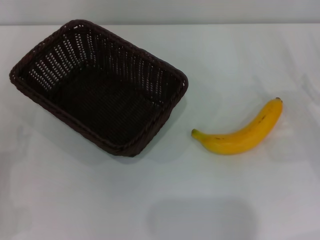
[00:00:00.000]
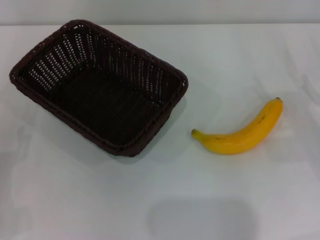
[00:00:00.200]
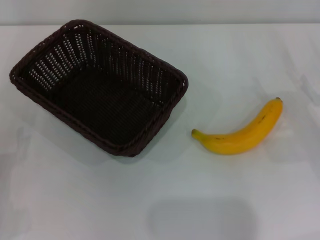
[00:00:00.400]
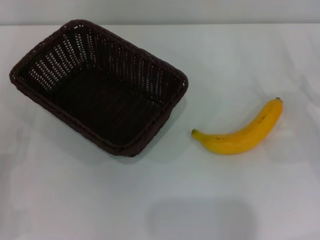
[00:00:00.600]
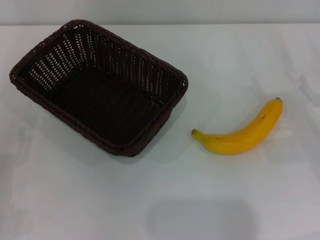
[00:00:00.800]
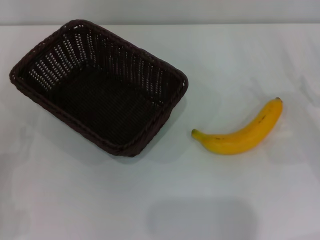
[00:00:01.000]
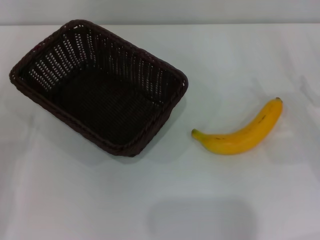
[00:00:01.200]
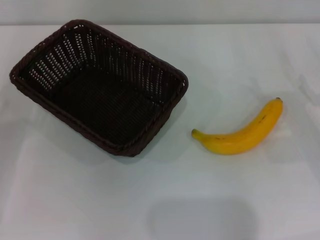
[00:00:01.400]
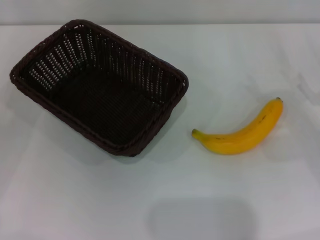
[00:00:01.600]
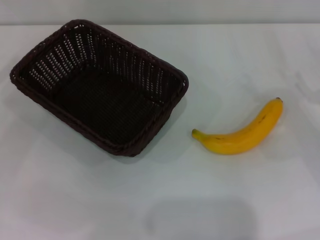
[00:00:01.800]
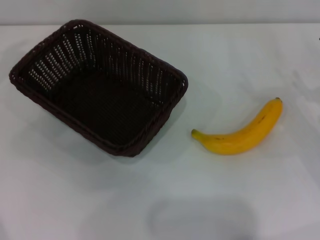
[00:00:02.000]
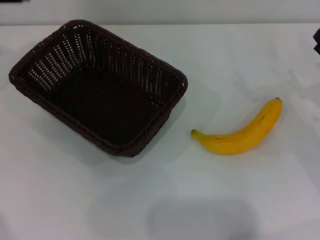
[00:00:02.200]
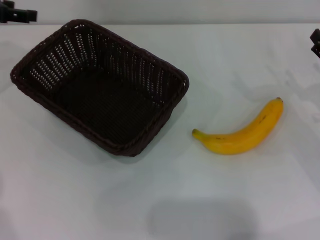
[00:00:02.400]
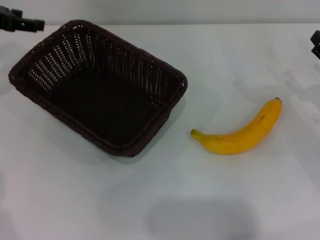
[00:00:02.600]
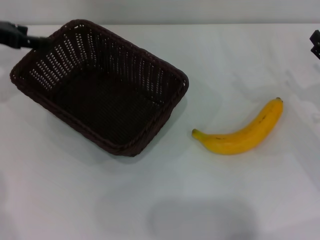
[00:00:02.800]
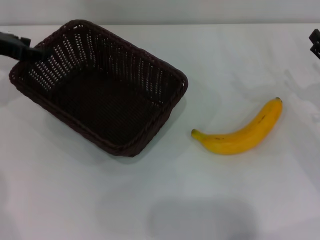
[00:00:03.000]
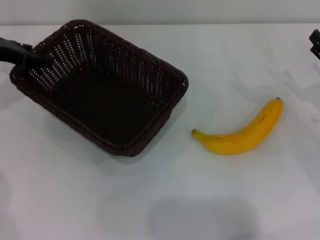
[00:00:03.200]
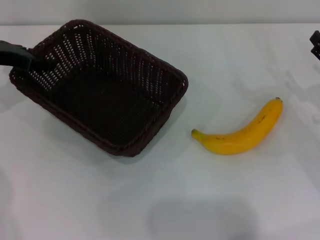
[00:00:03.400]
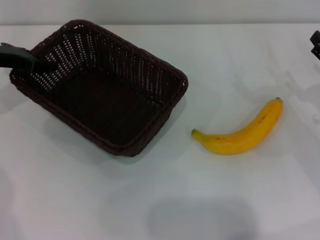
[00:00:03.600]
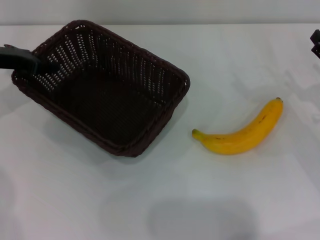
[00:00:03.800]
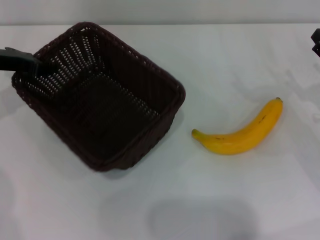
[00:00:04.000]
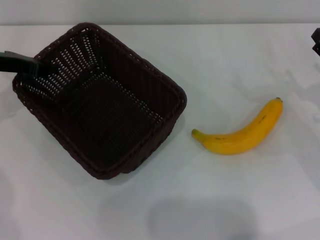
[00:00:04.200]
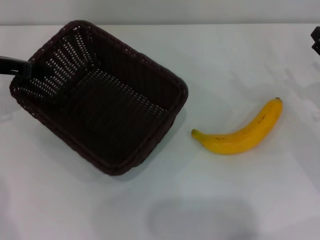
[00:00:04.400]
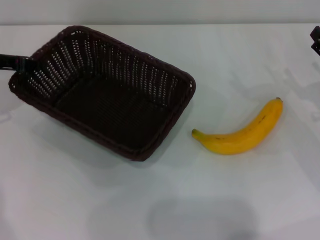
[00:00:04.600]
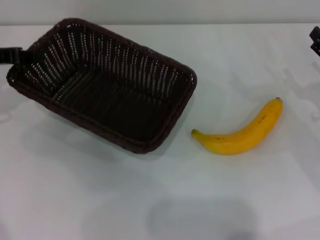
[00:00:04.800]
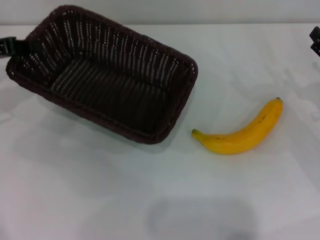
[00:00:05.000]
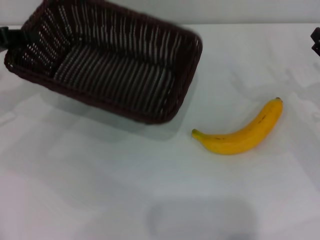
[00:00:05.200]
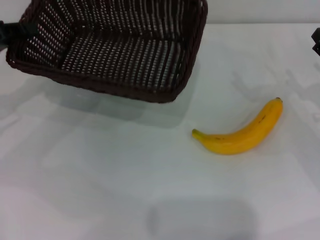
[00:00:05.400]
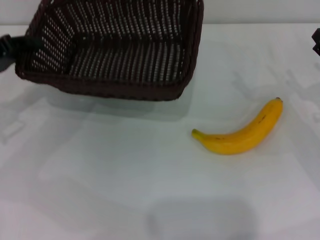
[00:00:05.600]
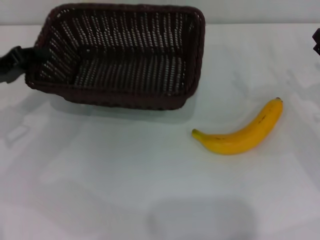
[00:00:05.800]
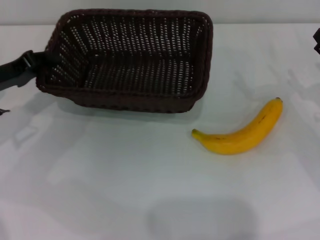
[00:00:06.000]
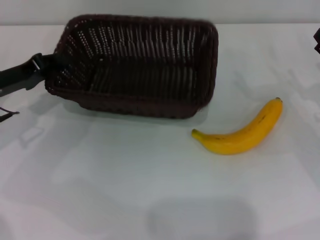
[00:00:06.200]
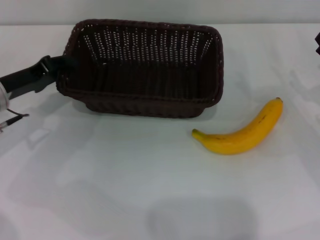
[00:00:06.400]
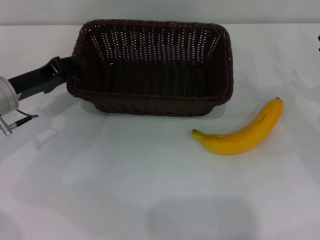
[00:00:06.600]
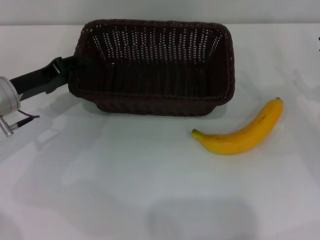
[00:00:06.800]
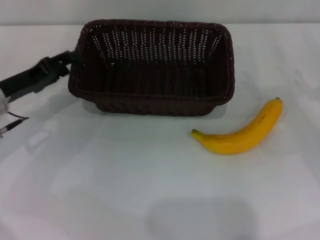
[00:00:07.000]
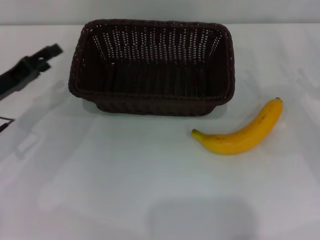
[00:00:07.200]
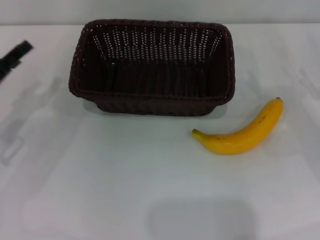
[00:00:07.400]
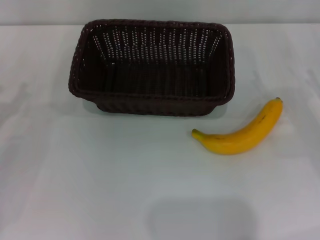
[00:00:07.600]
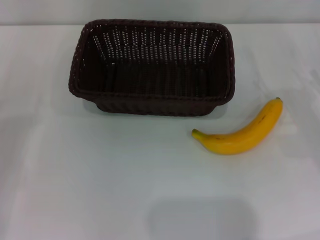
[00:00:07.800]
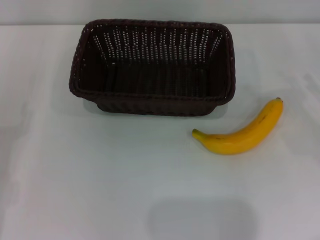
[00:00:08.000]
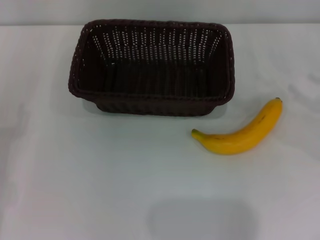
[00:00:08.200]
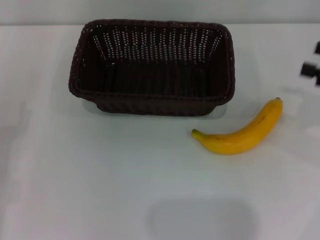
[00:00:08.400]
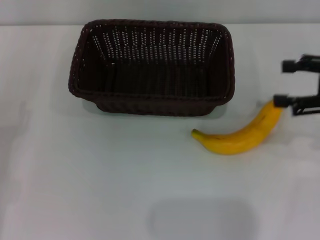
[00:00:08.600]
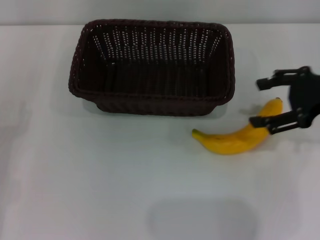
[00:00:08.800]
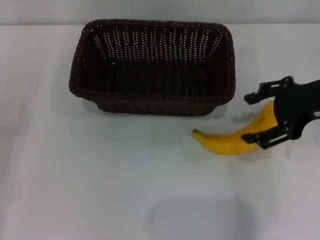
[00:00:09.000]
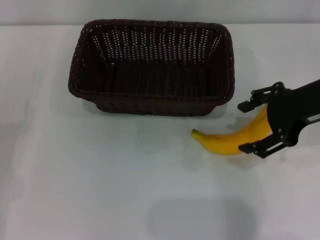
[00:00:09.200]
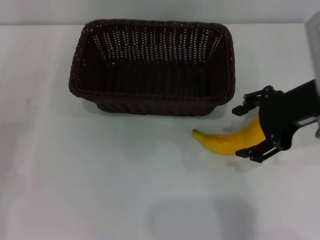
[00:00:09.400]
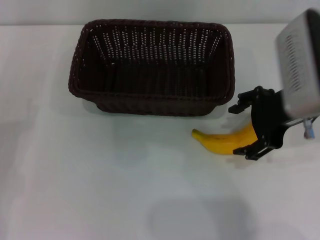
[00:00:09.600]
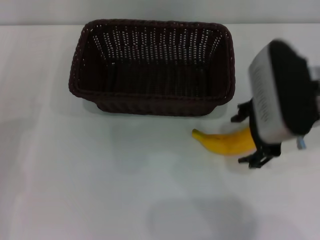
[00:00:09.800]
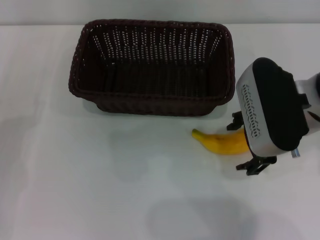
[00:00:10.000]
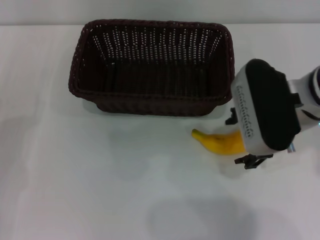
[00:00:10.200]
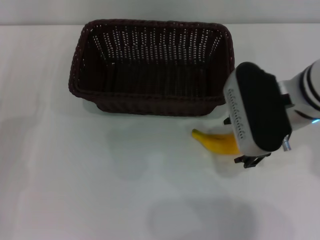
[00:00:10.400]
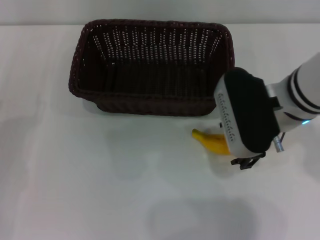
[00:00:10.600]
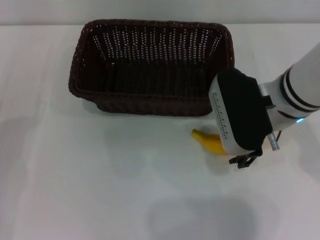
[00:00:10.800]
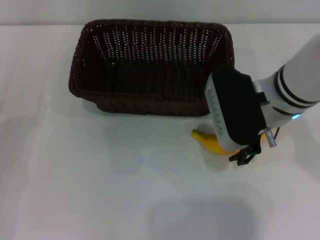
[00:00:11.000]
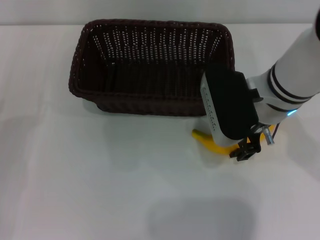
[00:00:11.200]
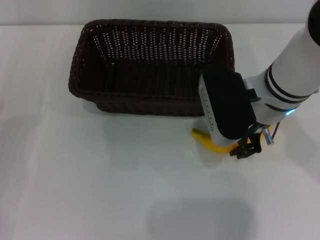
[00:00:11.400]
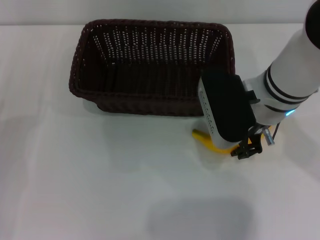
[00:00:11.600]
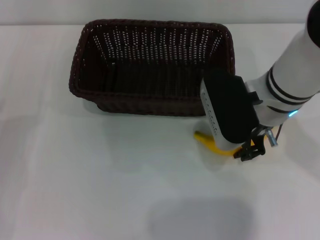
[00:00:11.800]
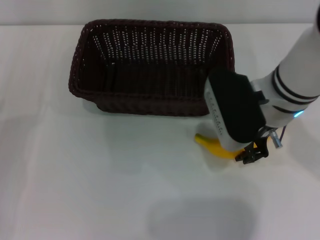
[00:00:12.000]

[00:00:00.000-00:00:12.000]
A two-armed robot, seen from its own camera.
Step, 00:00:00.000 to 00:00:04.600: Pick up the dark basket with the left gripper.
Step, 00:00:04.800 to 00:00:06.800: Place the dark basket in the center of view with the left gripper.
00:00:01.600 to 00:00:03.000: The left gripper heads forward, to the right and upward, covering some 20 cm.
00:00:03.000 to 00:00:04.400: The left gripper closes up.
00:00:04.400 to 00:00:06.000: The left gripper moves backward, approximately 5 cm.
00:00:06.000 to 00:00:07.600: The left gripper goes approximately 10 cm backward, and opens.
00:00:07.600 to 00:00:09.000: The right gripper moves upward and to the left, some 15 cm.
00:00:09.000 to 00:00:10.400: The right gripper moves to the left, roughly 10 cm.
00:00:10.400 to 00:00:12.000: The right gripper closes.

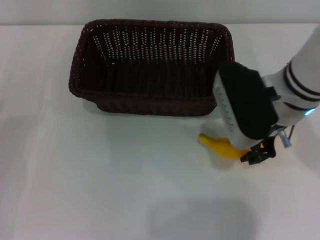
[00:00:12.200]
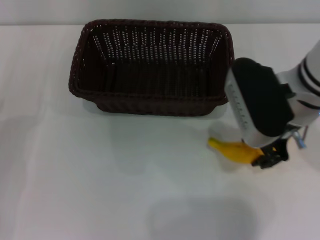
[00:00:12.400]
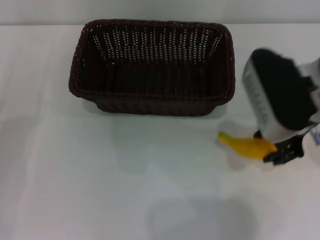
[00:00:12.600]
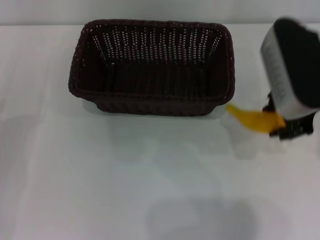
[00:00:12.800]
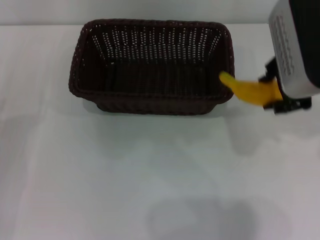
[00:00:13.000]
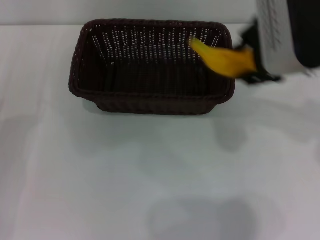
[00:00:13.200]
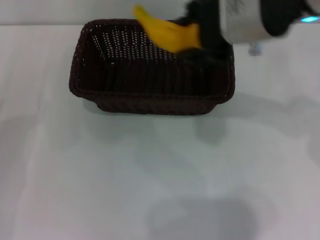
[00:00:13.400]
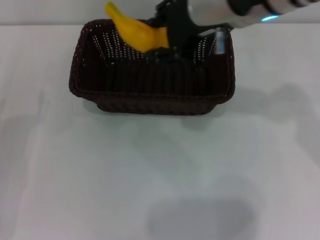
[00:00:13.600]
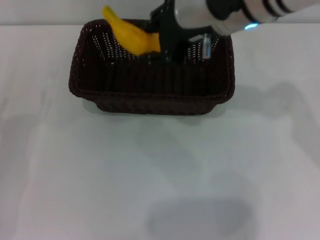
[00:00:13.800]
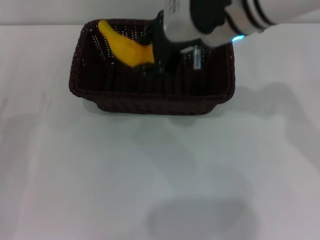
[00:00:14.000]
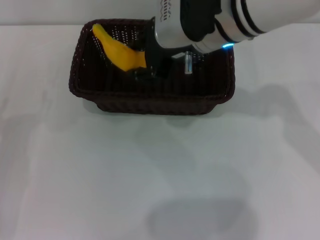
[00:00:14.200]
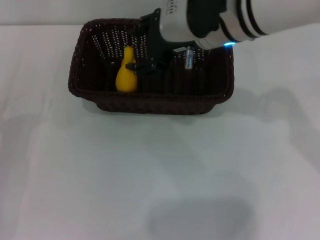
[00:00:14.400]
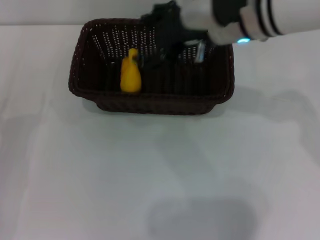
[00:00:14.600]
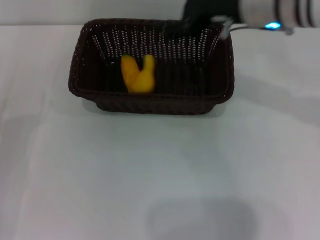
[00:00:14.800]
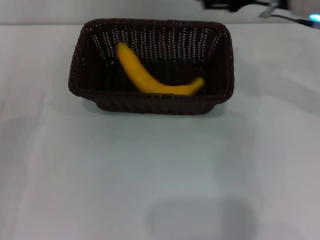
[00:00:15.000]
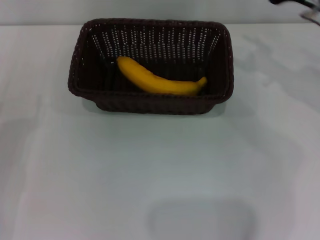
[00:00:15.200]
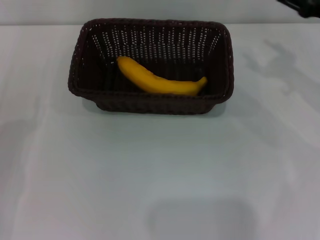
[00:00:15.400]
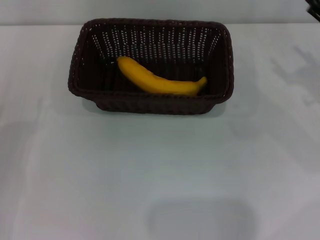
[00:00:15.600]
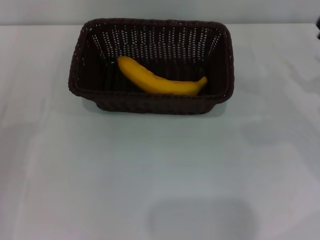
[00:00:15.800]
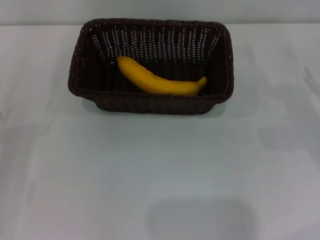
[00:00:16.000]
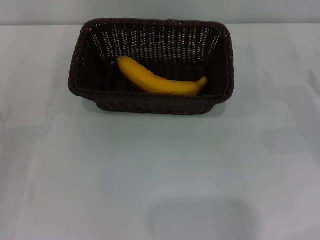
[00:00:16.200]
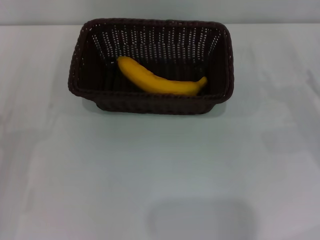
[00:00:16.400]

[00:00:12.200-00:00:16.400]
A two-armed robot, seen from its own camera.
Step, 00:00:12.800 to 00:00:14.600: Place the banana into the dark basket with the right gripper.
00:00:12.200 to 00:00:13.600: The right gripper shifts some 10 cm upward.
00:00:13.600 to 00:00:15.000: The right gripper travels to the right and downward by some 10 cm, and opens its fingers.
00:00:15.000 to 00:00:16.400: The right gripper moves downward, to the right and backward, approximately 25 cm.
